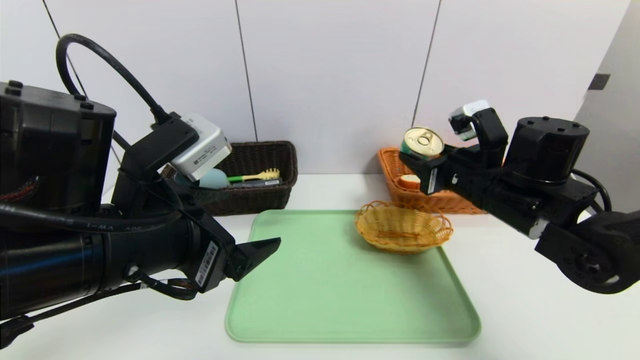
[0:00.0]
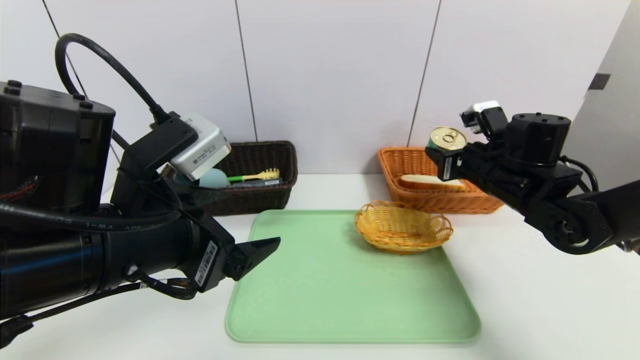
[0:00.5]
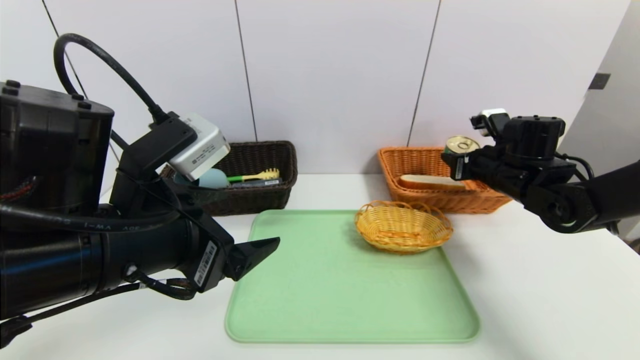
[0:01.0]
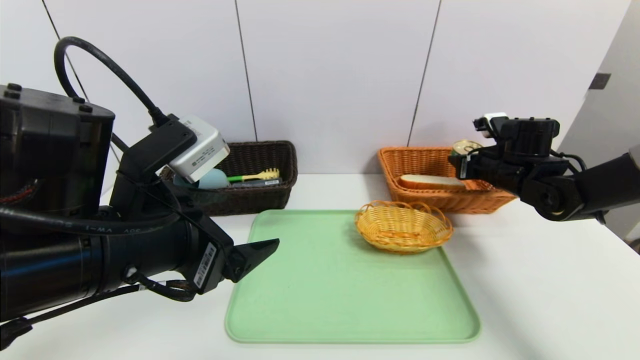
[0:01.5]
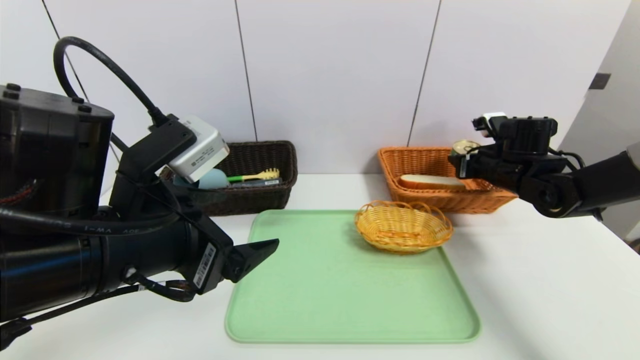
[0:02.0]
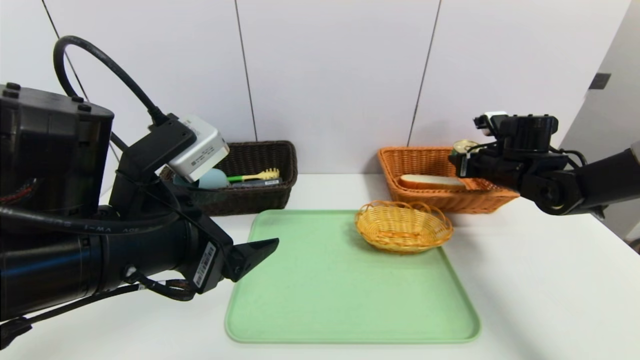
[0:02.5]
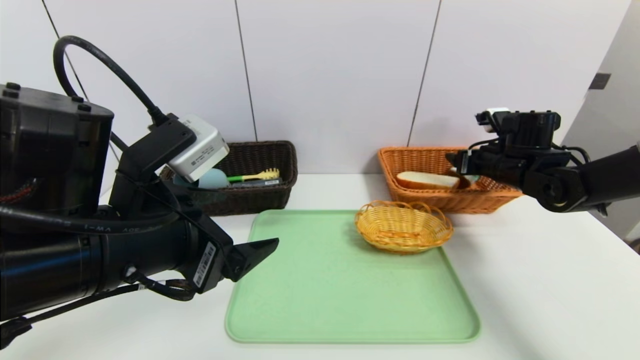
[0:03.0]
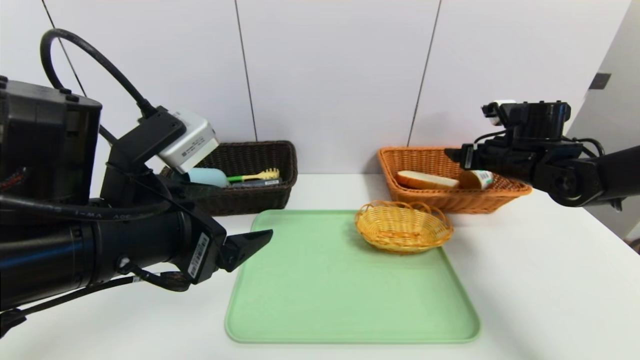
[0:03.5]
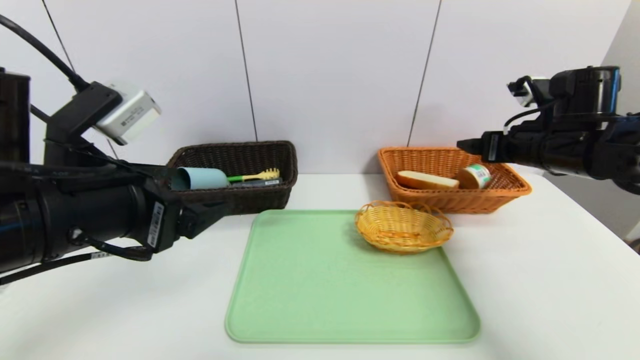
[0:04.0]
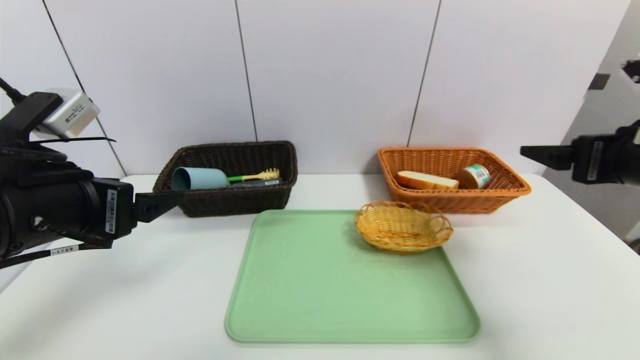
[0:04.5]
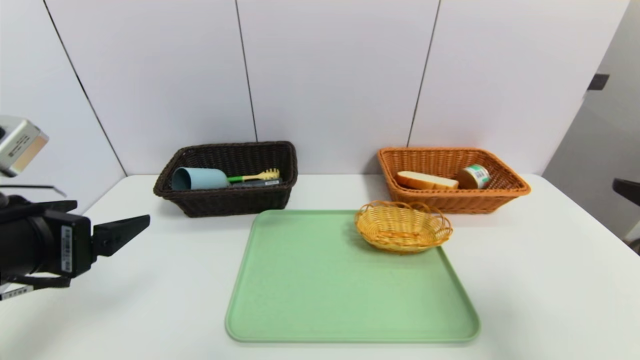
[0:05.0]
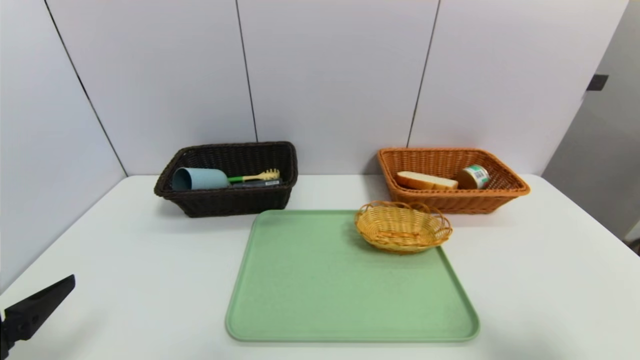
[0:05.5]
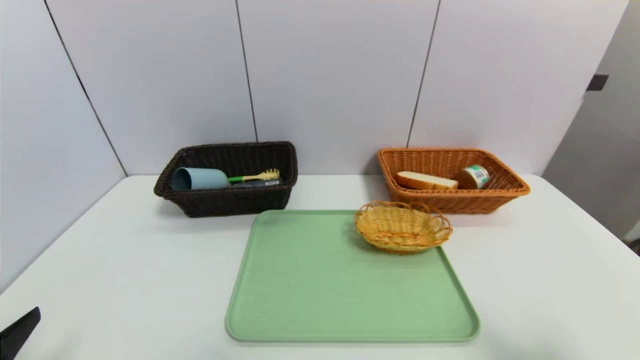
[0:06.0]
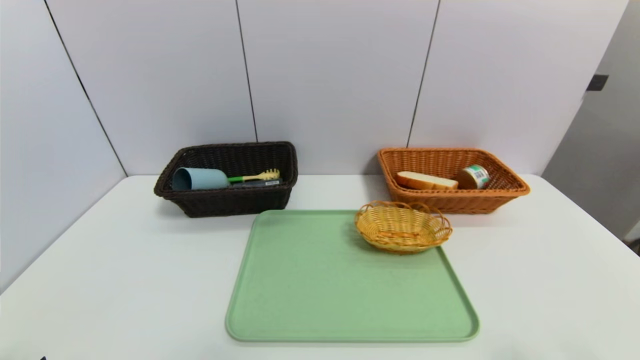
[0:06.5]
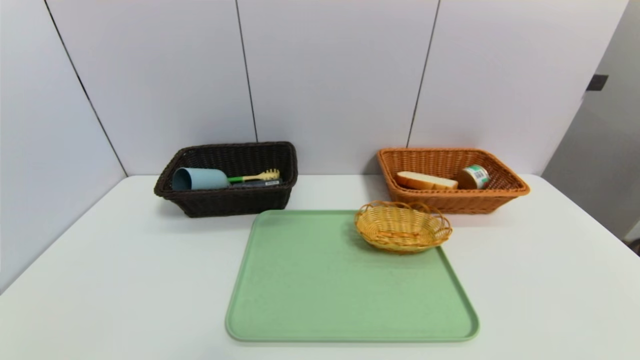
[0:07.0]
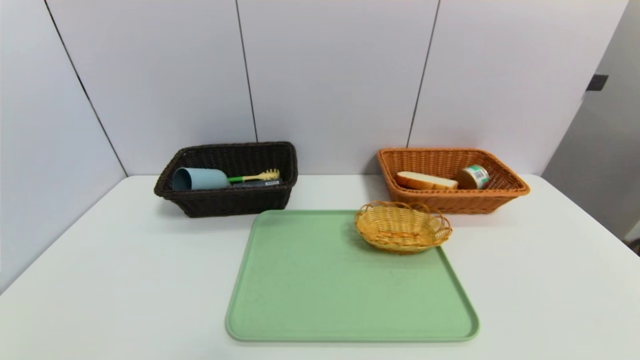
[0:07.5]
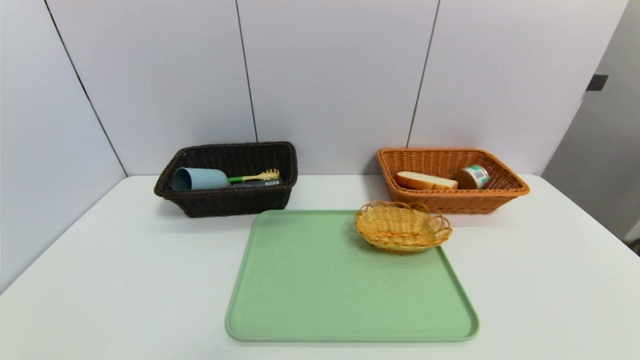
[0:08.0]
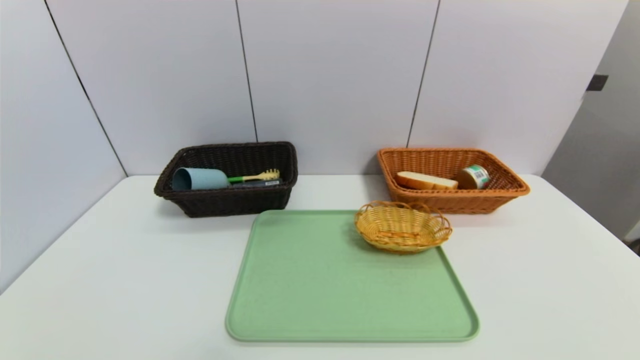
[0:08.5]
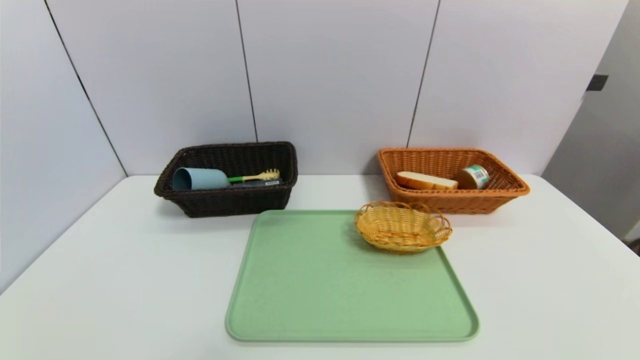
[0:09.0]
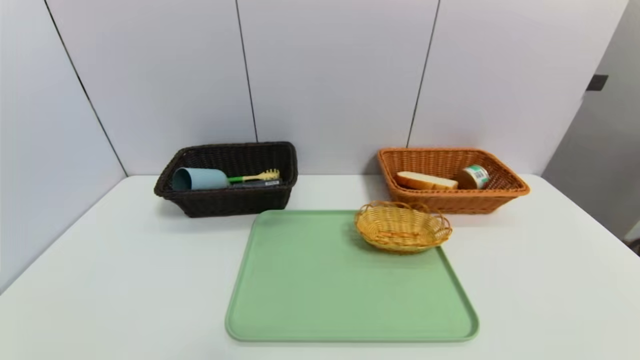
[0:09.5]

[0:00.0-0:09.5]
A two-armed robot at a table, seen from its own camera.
Task of the whole recording: place the food in the right basket with the right gripper, and place the non food items in the left basket with the left gripper.
Step, 0:00.0 to 0:03.5: Grasp the tin and put it in the right basket.
0:00.0 to 0:02.0: The right gripper is displaced forward and to the right by about 15 cm.
0:02.0 to 0:04.0: The right gripper is displaced upward and backward by approximately 10 cm, and opens.
0:04.0 to 0:05.5: The right gripper shifts some 30 cm backward. Meanwhile the left gripper goes some 15 cm backward, to the left and downward.
0:05.5 to 0:07.5: The right gripper moves downward and backward, approximately 15 cm, while the left gripper is displaced backward and downward by some 15 cm.

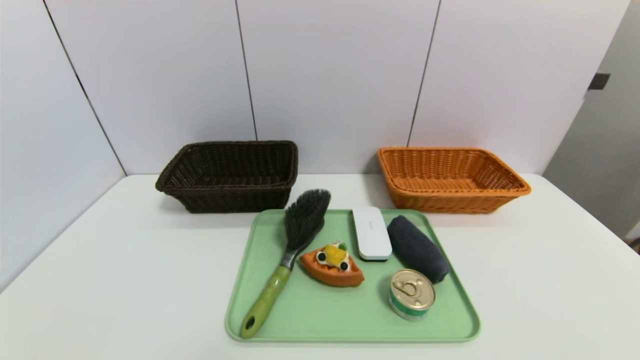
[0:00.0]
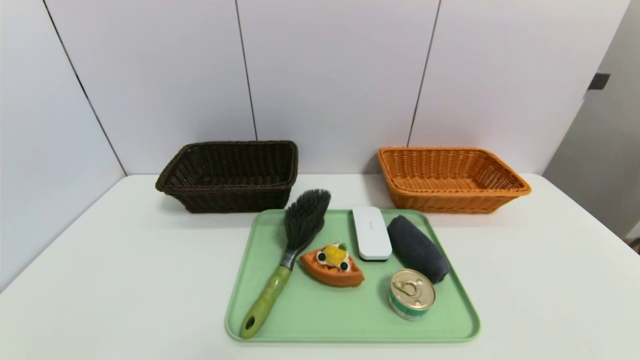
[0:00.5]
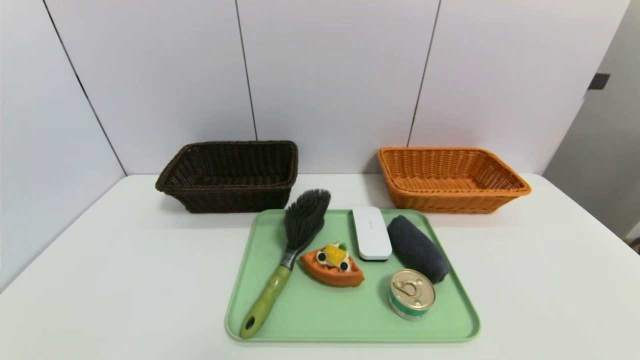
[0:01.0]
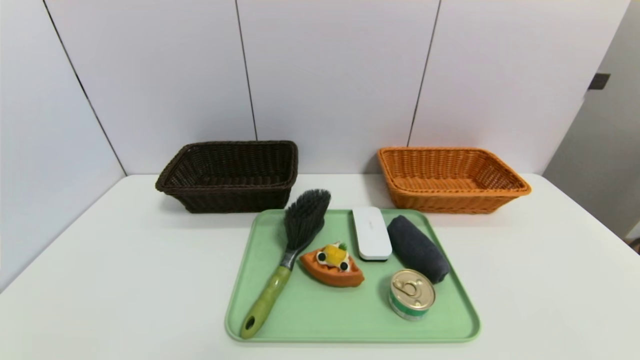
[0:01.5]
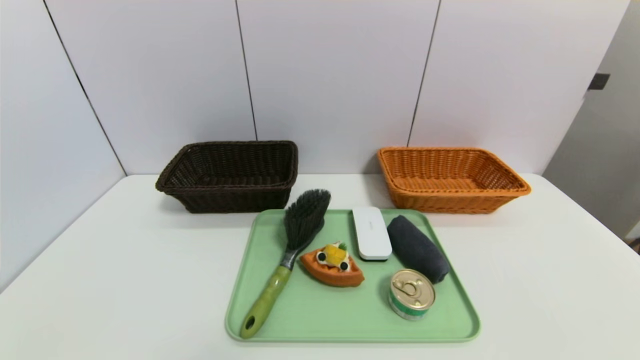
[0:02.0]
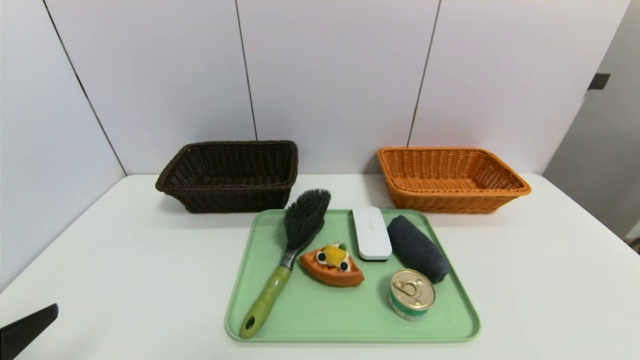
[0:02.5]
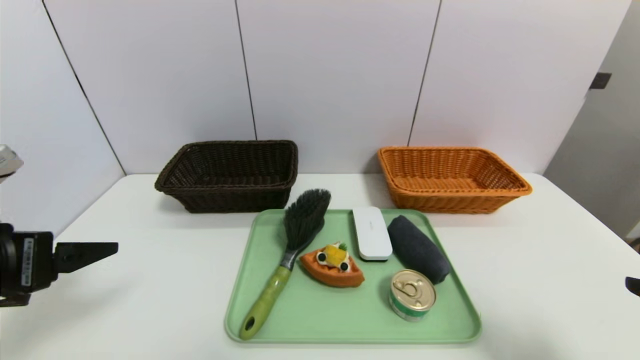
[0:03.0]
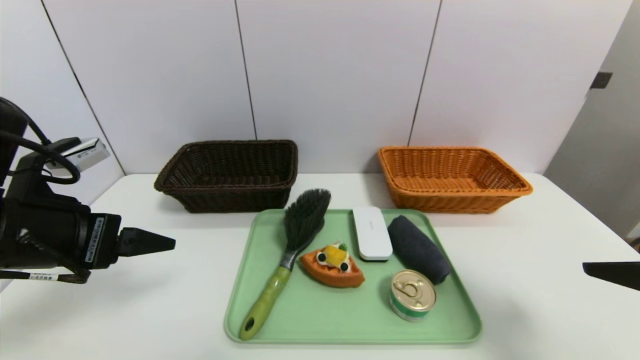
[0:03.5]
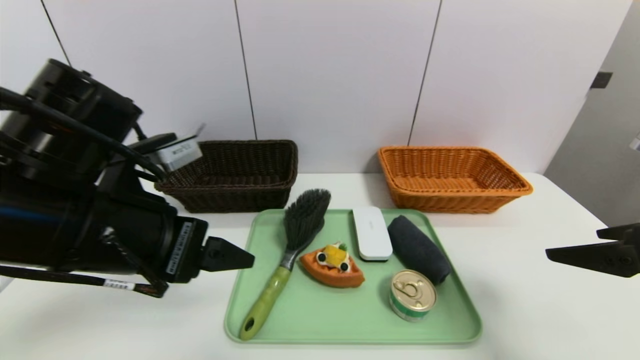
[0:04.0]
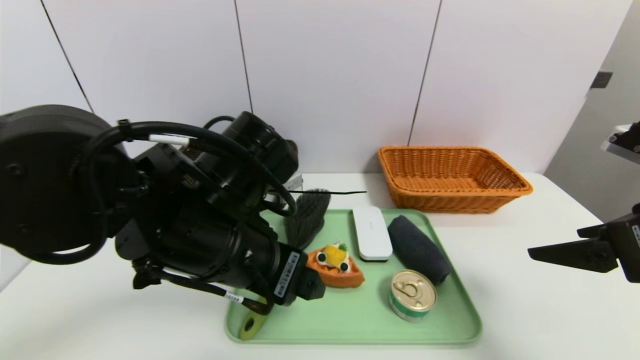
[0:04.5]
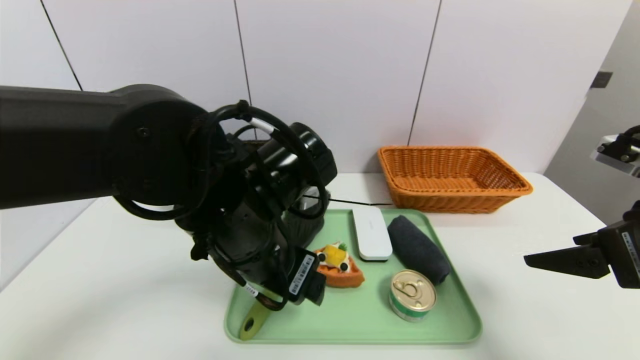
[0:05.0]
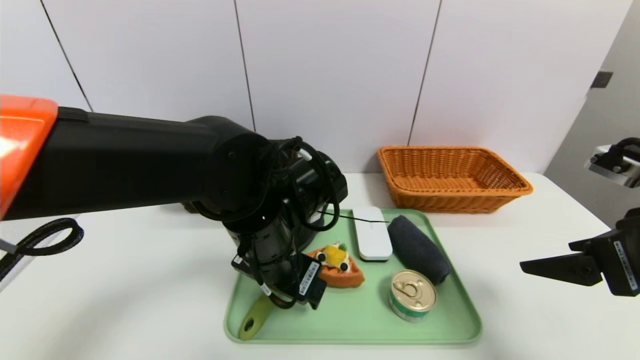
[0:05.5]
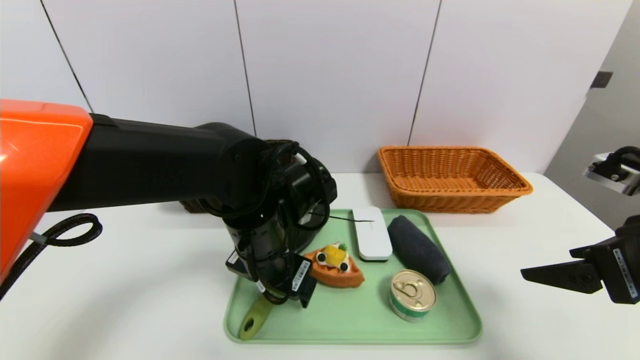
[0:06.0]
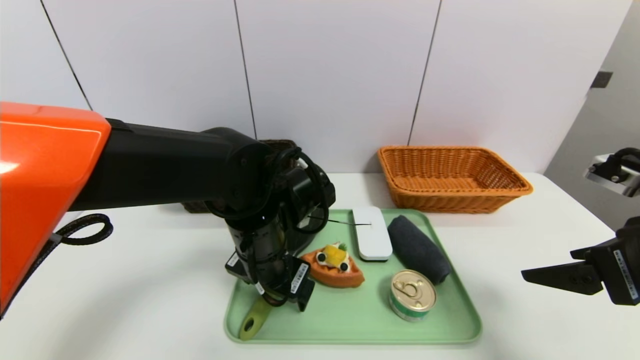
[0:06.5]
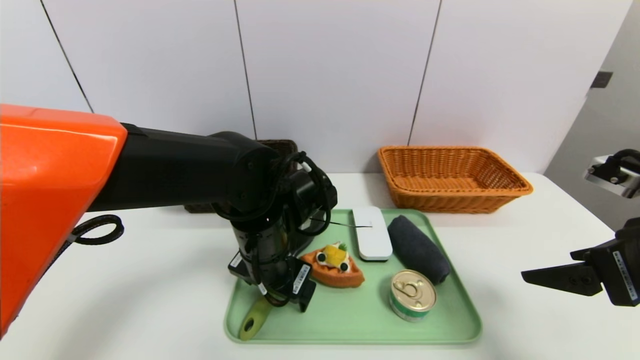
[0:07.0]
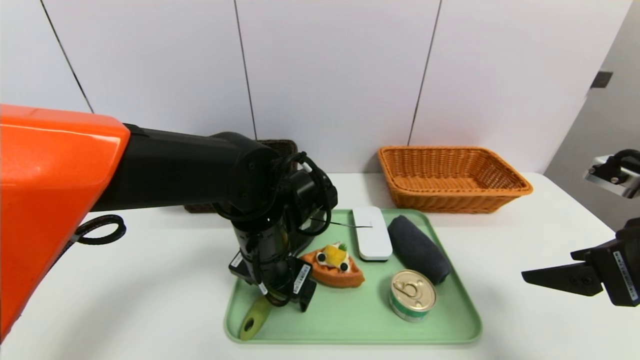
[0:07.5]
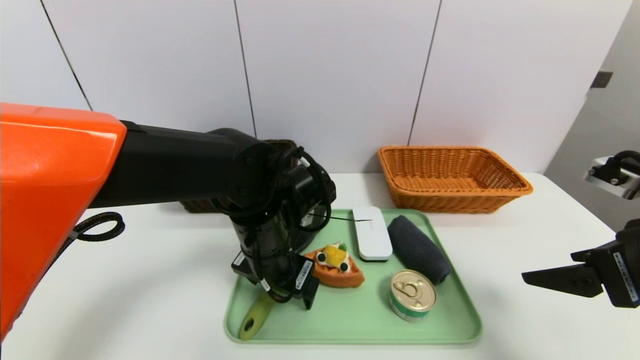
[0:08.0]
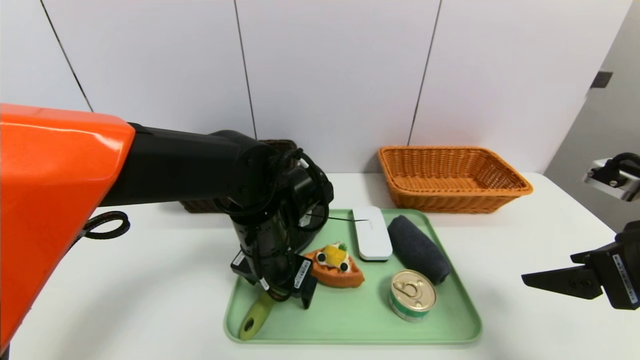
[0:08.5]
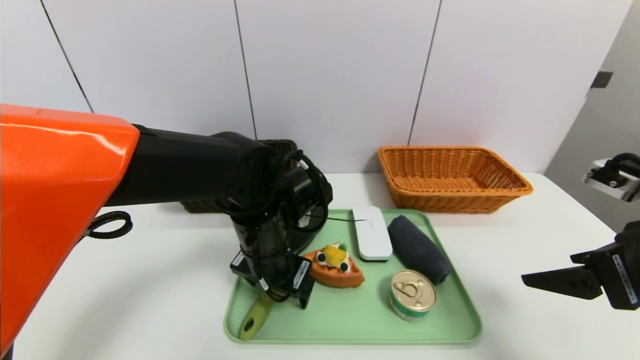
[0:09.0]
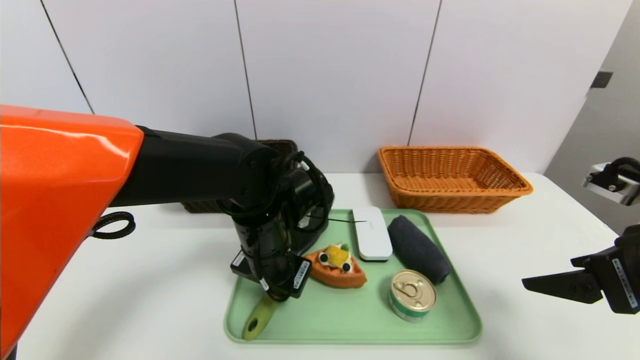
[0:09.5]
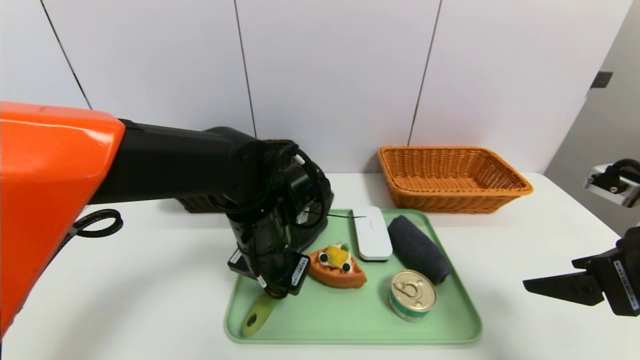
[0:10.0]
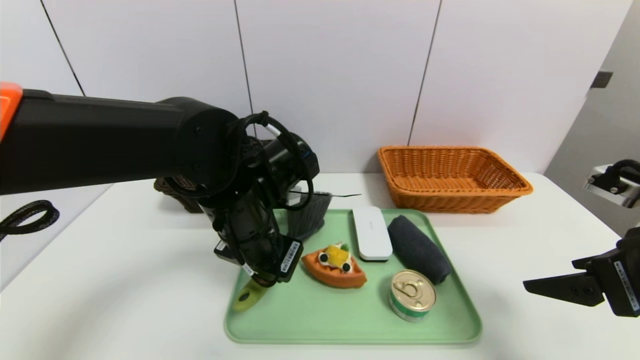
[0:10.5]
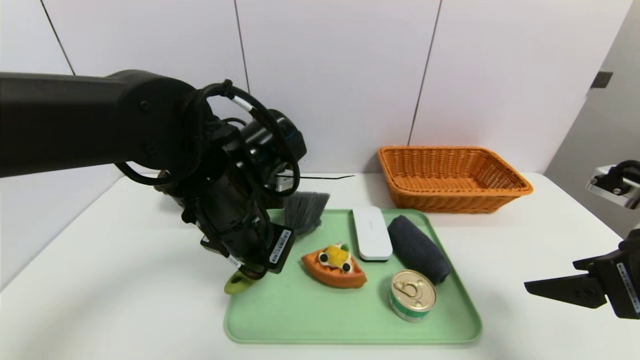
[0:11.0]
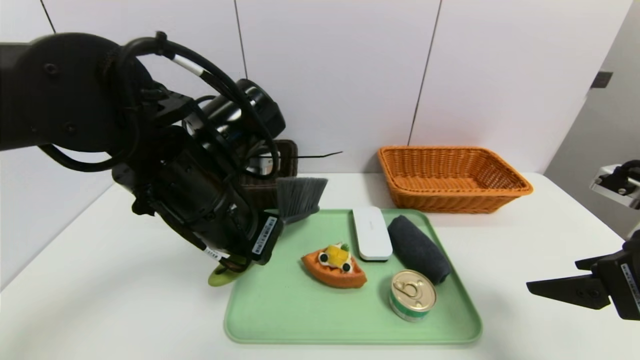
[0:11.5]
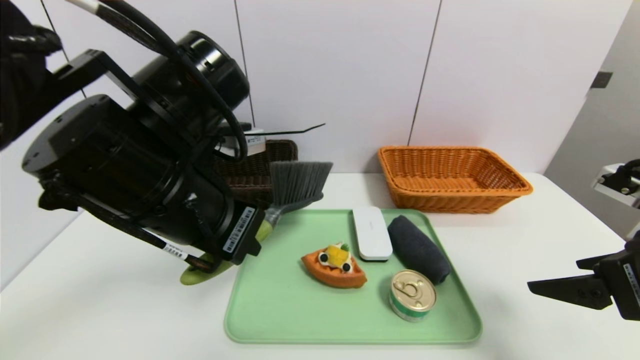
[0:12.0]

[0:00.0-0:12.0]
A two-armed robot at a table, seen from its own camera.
Task of the whole recording: place the food in the right basket with the right gripper, and place the non food items in the left basket with the left gripper.
0:02.0 to 0:04.0: The left gripper shifts about 25 cm forward, to the right and upward, while the right gripper moves forward and upward, about 25 cm.
0:04.0 to 0:06.0: The left gripper is displaced to the right, downward and forward by about 15 cm.
0:06.0 to 0:08.0: The grippers make only small movements.
0:08.0 to 0:10.0: The left gripper closes up.
0:10.0 to 0:12.0: The left gripper shifts about 15 cm upward, backward and to the left.
